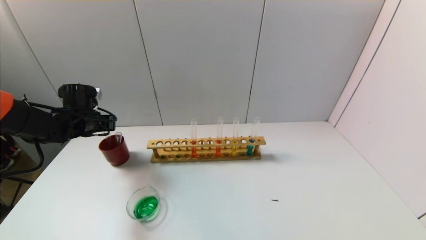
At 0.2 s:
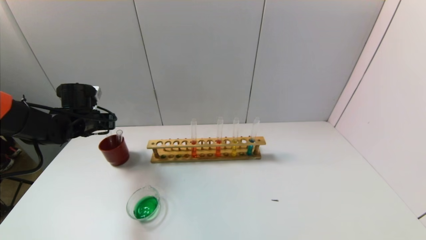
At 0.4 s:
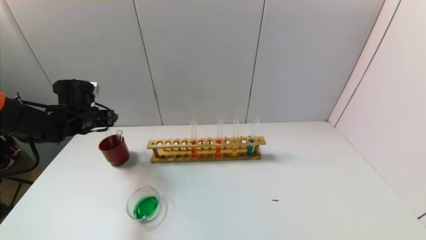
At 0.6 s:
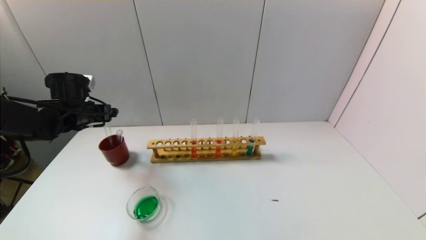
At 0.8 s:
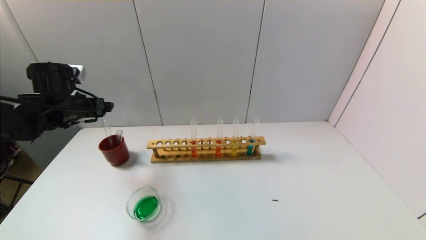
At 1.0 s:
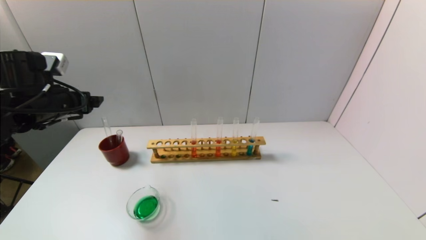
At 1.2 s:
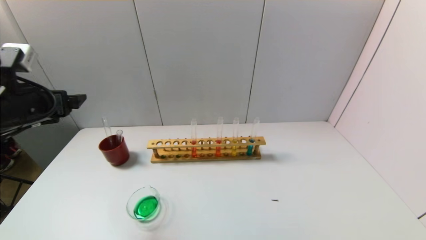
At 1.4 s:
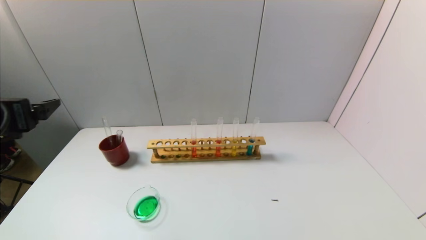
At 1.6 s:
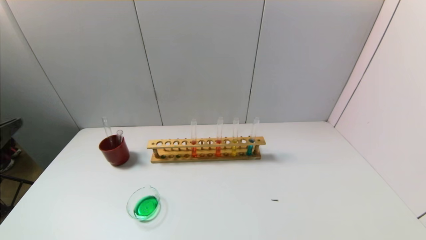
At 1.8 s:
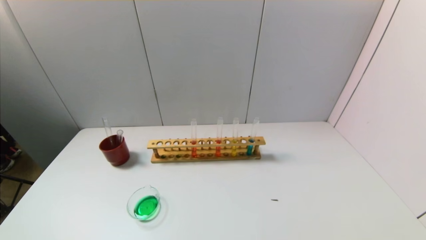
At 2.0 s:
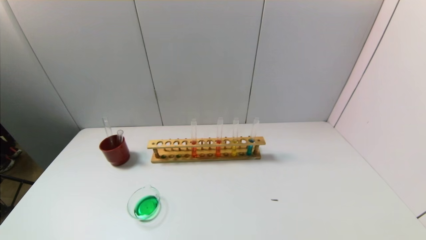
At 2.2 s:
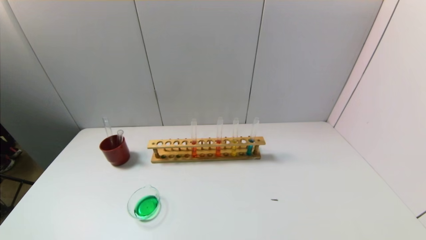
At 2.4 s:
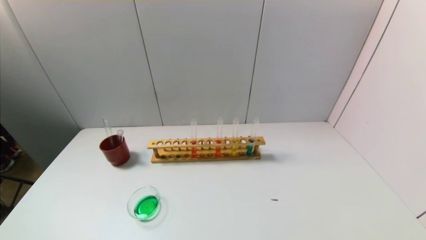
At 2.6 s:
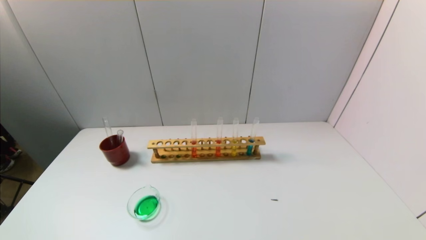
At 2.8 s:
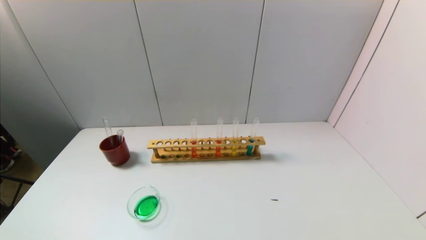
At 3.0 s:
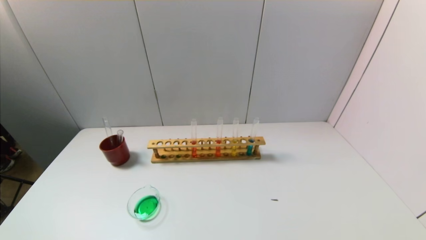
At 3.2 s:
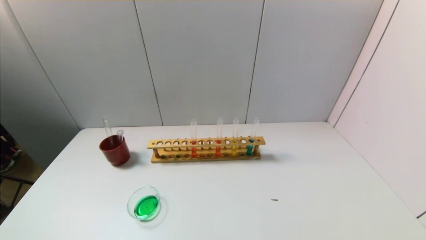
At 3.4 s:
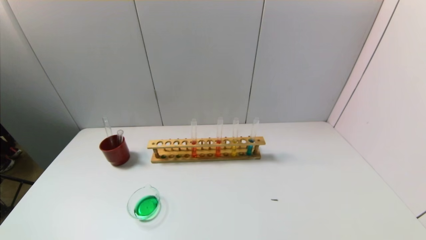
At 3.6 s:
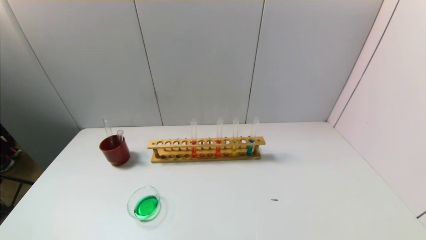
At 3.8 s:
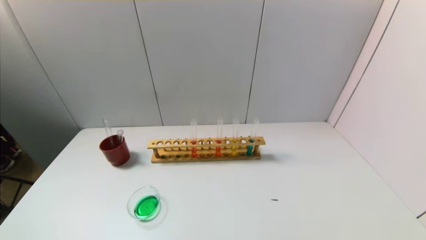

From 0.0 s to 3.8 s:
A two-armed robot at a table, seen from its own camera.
Task of the whole recording: pick up the test tube with yellow pigment and the test tube with blue pigment by grippers and pour them into the beaker.
From 0.0 s to 1.2 s: The left gripper heads backward and upward, covering about 20 cm, and opens.
From 1.2 s to 2.6 s: The left gripper is displaced backward and downward by approximately 30 cm.
